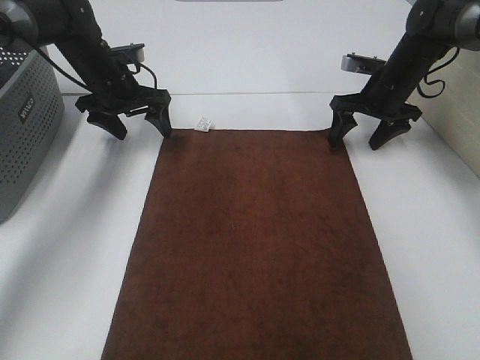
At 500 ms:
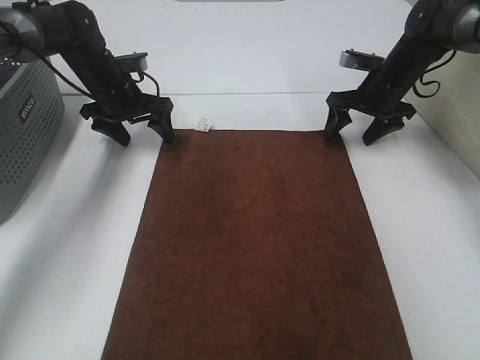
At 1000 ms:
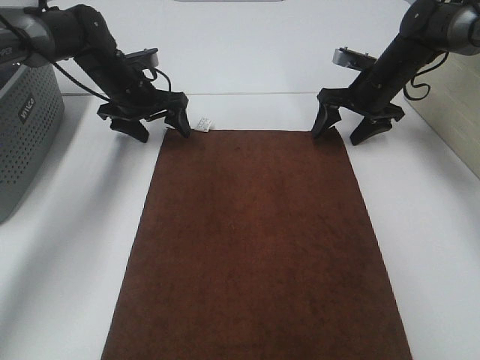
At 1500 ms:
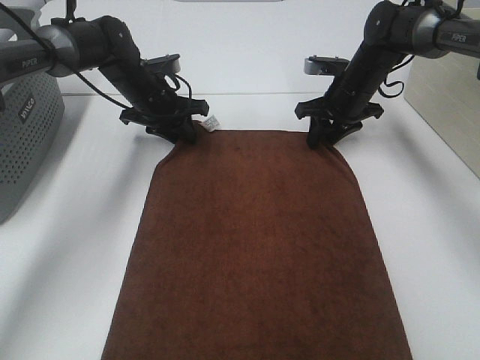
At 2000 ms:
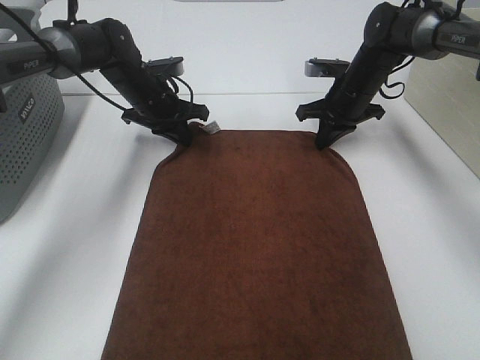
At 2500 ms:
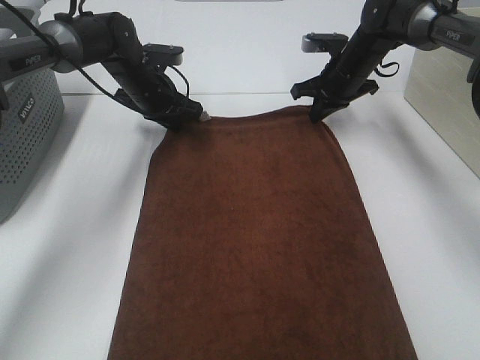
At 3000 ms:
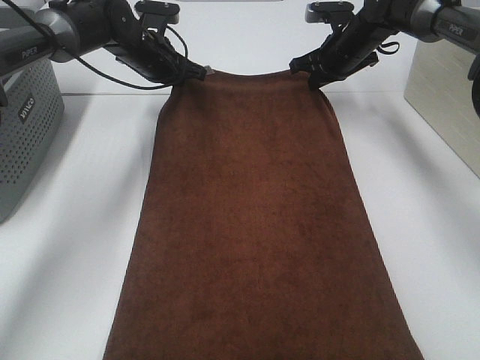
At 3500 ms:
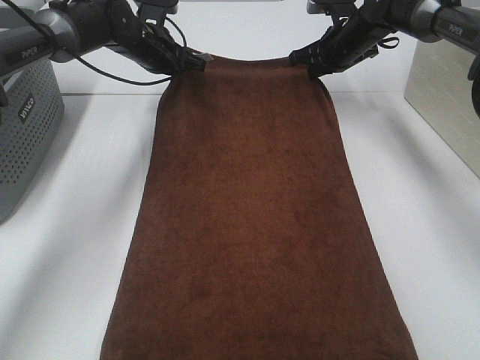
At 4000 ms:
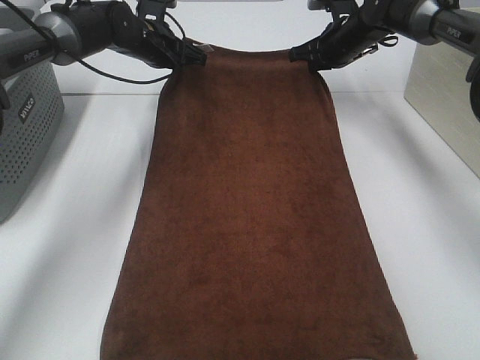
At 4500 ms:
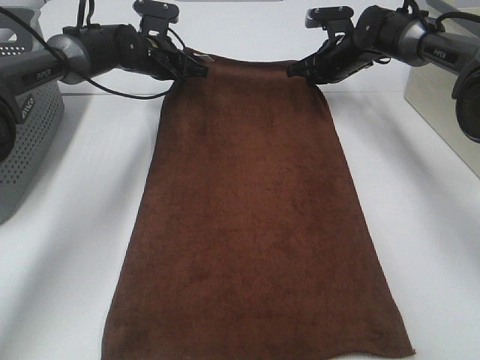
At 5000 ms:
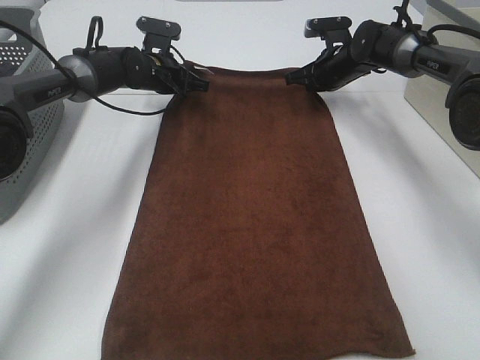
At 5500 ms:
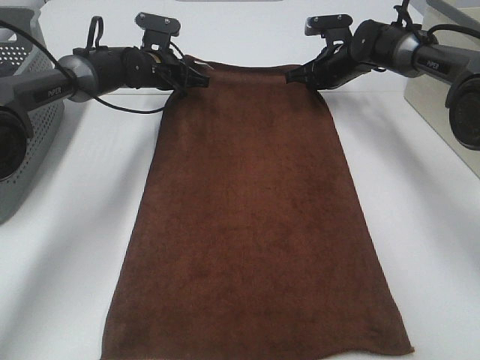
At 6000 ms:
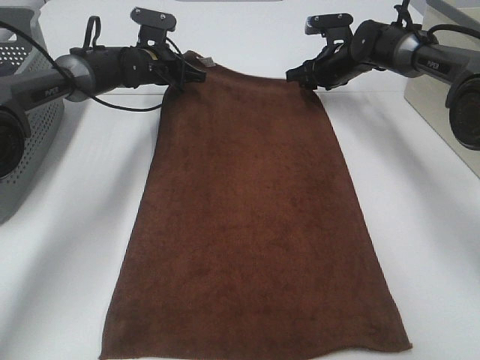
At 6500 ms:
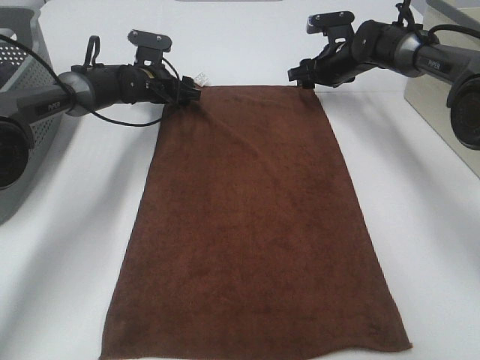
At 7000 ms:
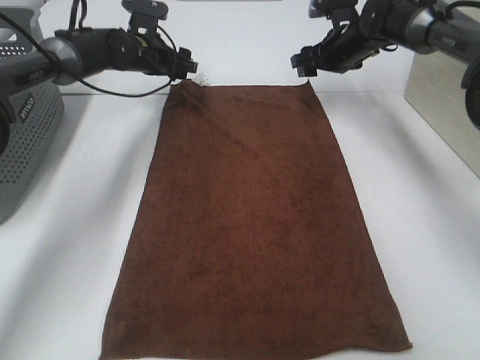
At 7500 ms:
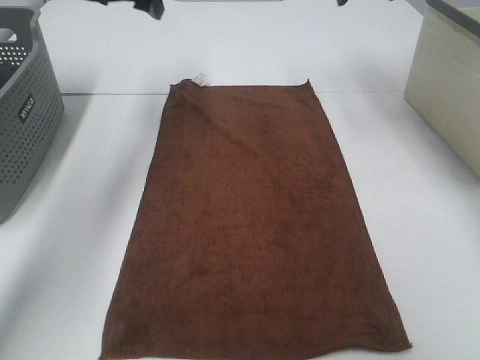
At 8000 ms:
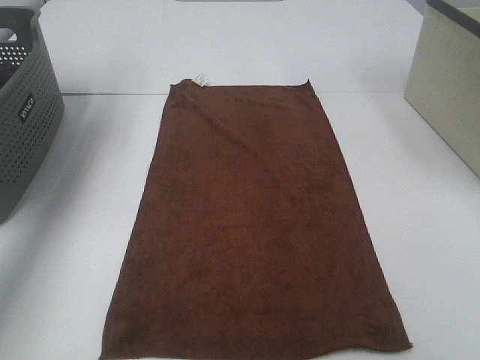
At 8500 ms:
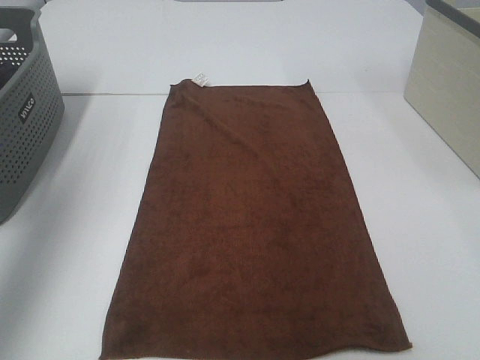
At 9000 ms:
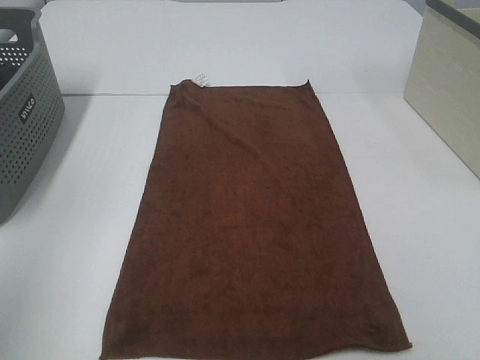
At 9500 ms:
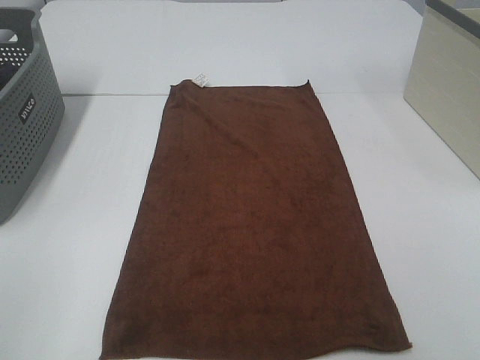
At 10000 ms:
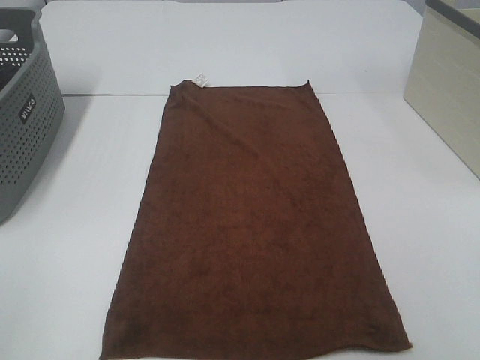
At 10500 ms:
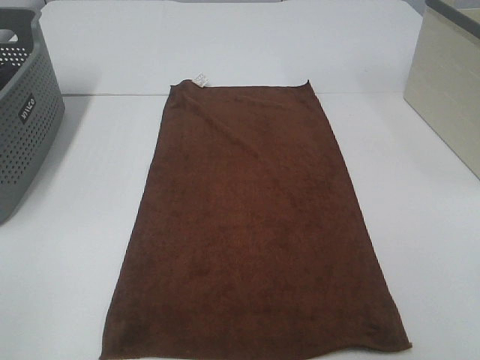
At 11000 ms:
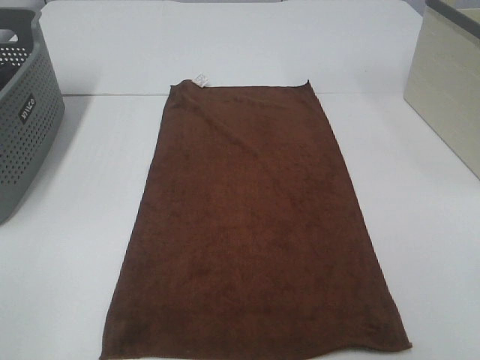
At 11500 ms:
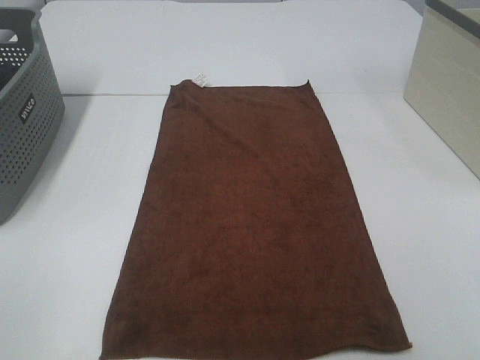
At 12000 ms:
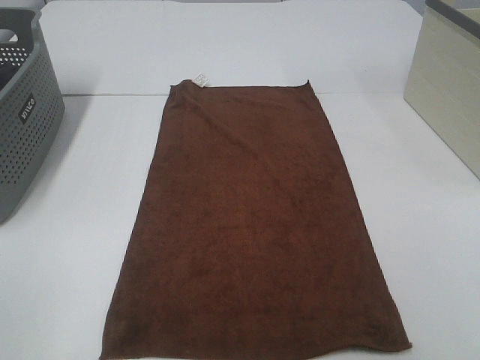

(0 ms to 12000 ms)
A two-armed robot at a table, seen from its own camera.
Task of the whole recording: Remove the towel and place it.
0 ms - 2000 ms: The right gripper goes some 5 cm to the left, and closes, while the left gripper travels to the right by approximately 5 cm, and closes up.
2000 ms - 4000 ms: The right gripper goes about 10 cm forward and upward. Meanwhile the left gripper heads upward and forward, covering some 10 cm.
4000 ms - 6000 ms: The right gripper changes place by some 5 cm, and opens up.
6000 ms - 8000 ms: The left gripper travels upward, to the left and backward by some 35 cm, and opens. Meanwhile the right gripper goes some 40 cm upward and backward, and opens its fingers.
8000 ms - 10000 ms: The right gripper shifts some 40 cm backward and downward. The left gripper is displaced backward by approximately 50 cm.

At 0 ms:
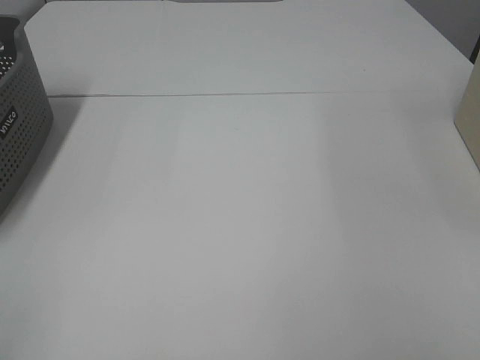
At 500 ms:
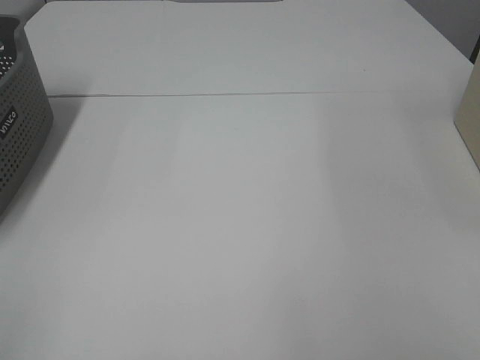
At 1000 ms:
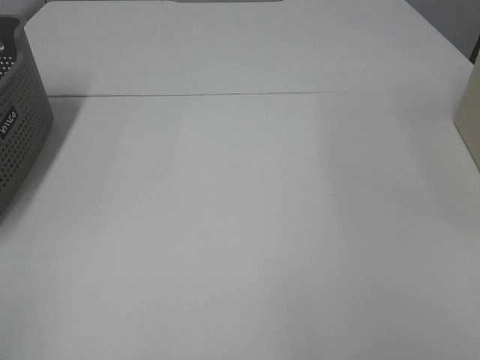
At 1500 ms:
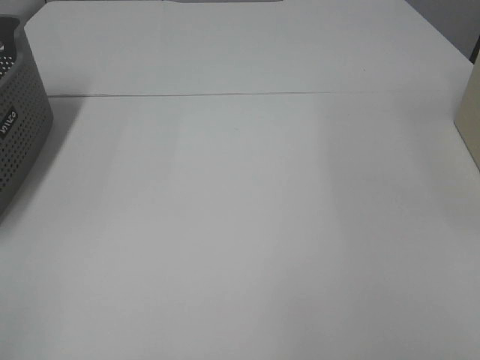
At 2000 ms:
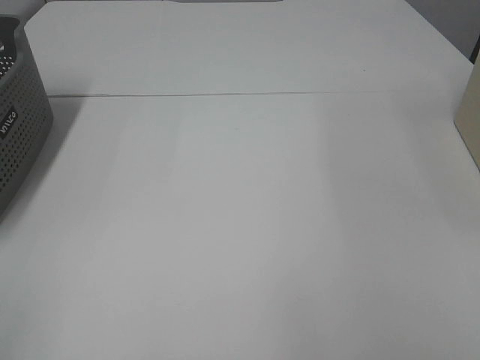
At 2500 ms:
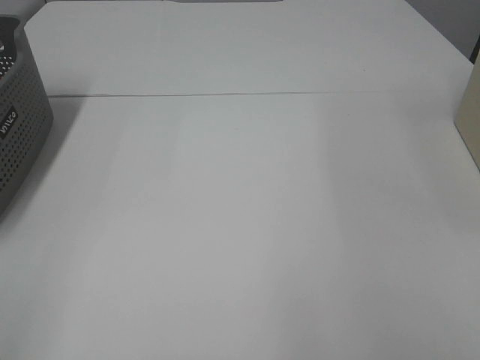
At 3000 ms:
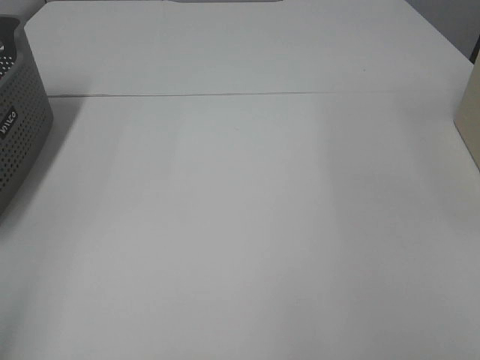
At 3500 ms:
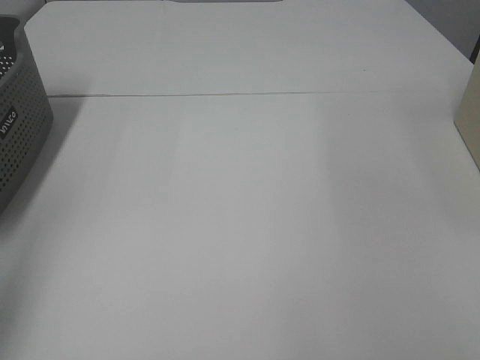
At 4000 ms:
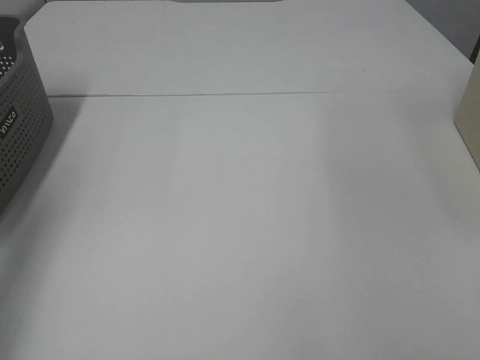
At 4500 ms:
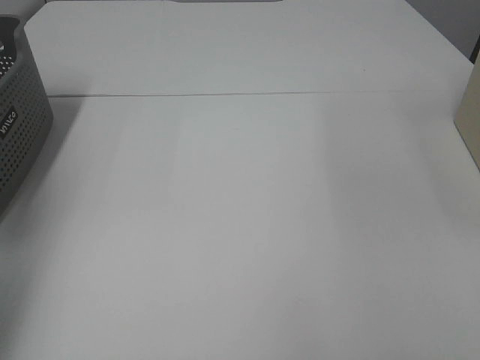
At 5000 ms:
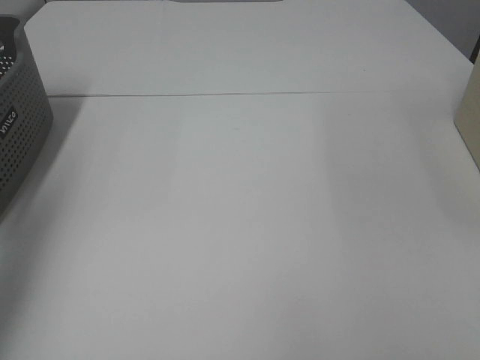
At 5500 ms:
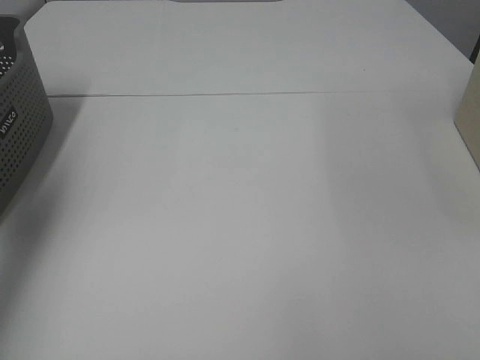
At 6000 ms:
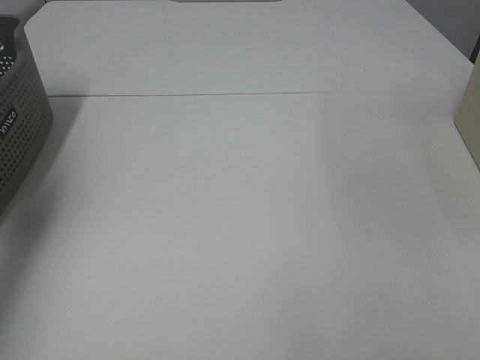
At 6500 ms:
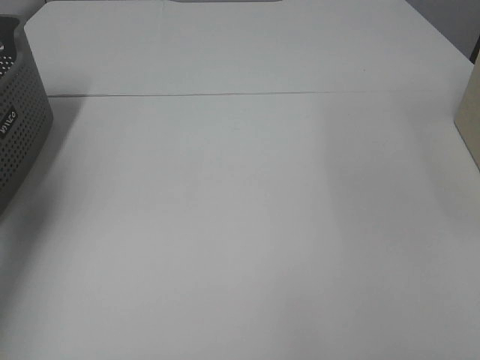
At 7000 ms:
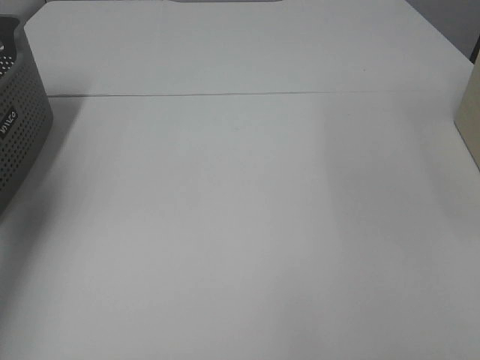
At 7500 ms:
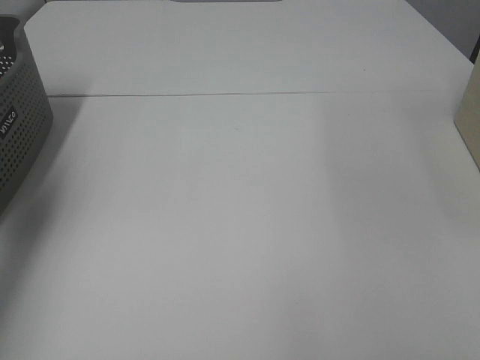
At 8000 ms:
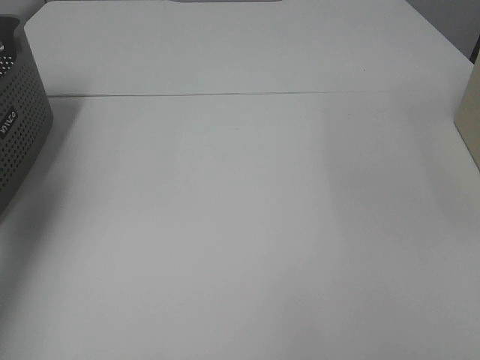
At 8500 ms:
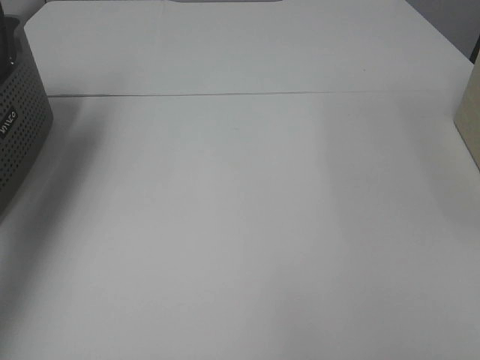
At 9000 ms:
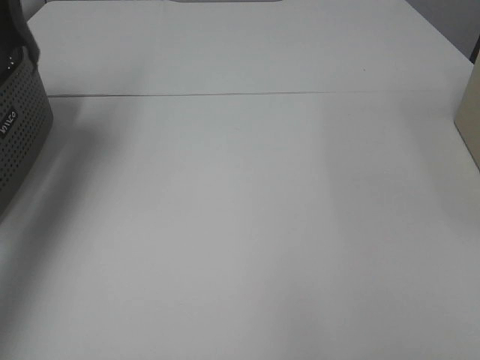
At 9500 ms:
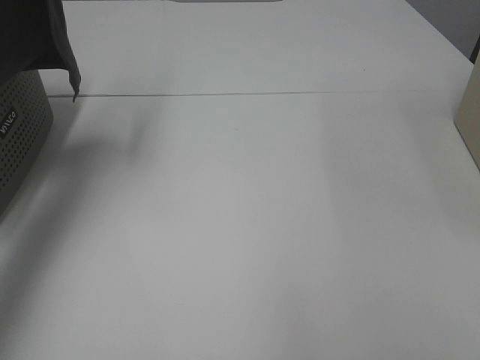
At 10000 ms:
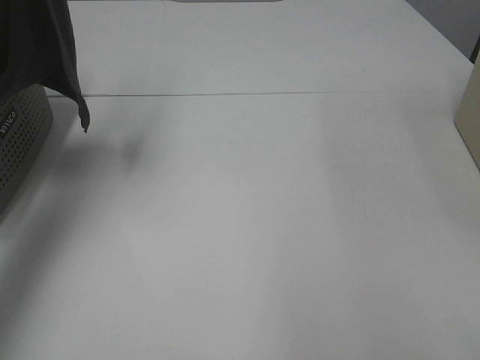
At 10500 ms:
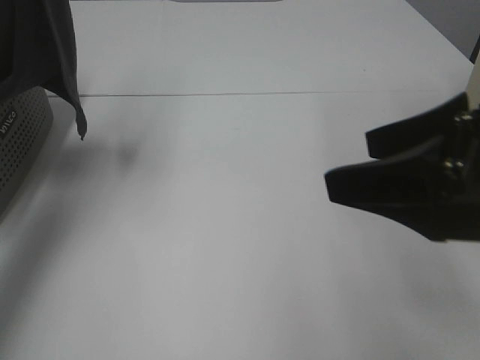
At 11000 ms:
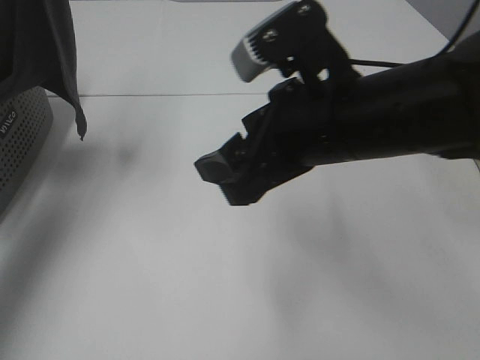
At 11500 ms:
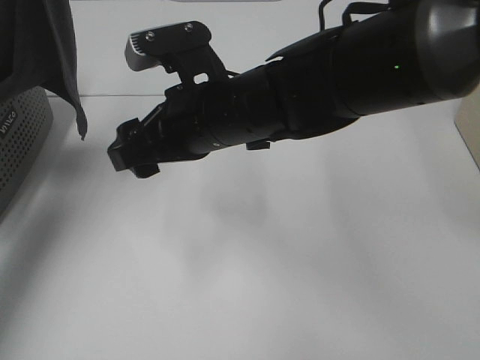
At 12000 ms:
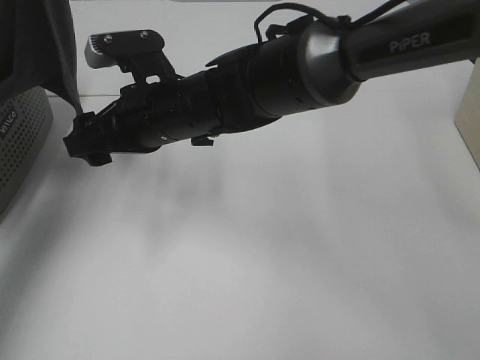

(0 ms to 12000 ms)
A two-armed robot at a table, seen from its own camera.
Task of the whole recording: Remove the towel and place it.
2000 ms - 4000 ms: The left gripper moves forward, approximately 20 cm.
8000 ms - 10000 ms: The left gripper travels upward, to the right and backward by some 15 cm.
10000 ms - 12000 ms: The right gripper goes some 40 cm to the left and forward.

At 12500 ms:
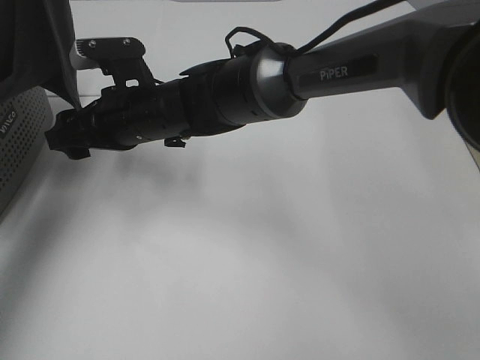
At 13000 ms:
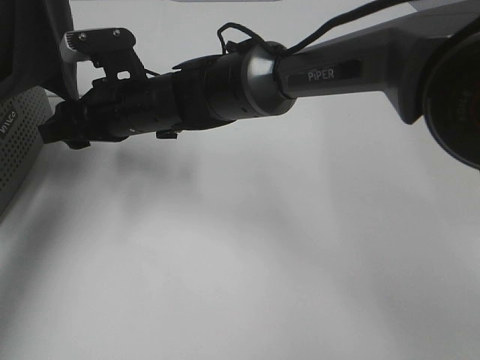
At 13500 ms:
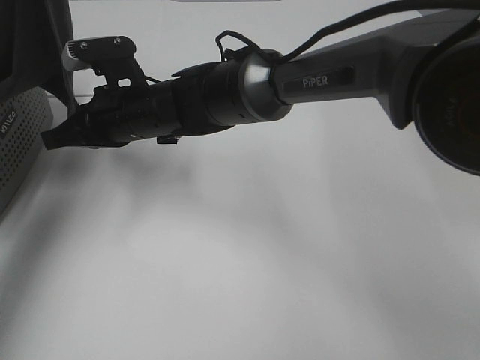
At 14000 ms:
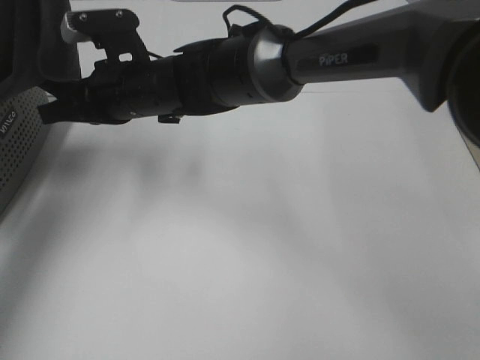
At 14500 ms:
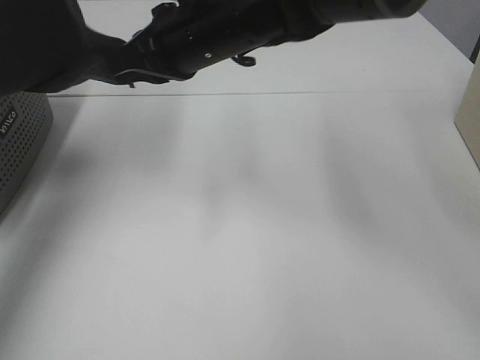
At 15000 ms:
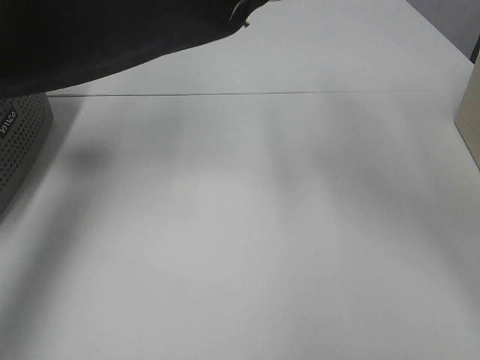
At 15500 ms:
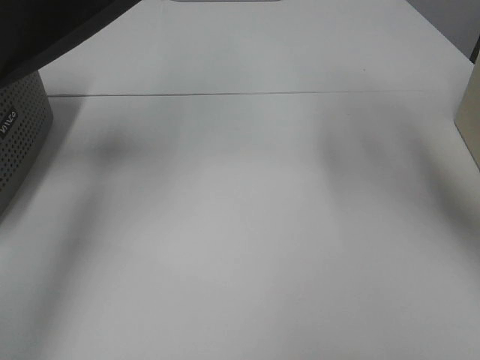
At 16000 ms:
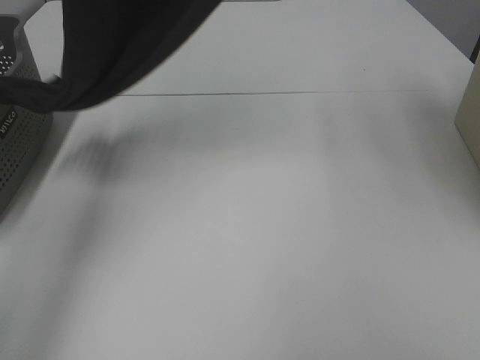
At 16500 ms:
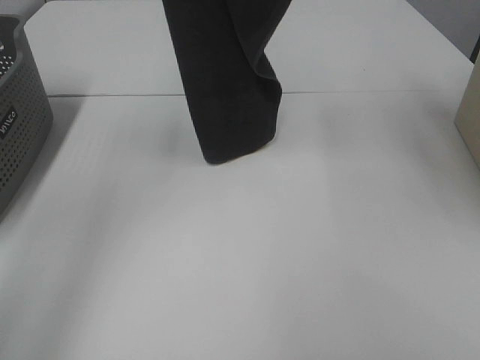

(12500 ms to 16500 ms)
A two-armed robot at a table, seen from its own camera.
Task of the whole recording: Remove the towel and place it.
Step, 12500 ms - 14500 ms: Right hand: grab a corner of the grey towel and straighten it.
12500 ms - 14500 ms: The right gripper is displaced upward and to the right by roughly 10 cm, and closes up.
14500 ms - 16500 ms: The left gripper moves to the right, upward and forward, some 15 cm, while the right gripper is displaced upward and to the right by about 35 cm.
